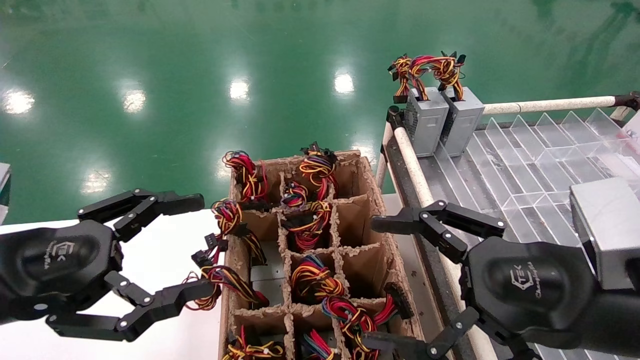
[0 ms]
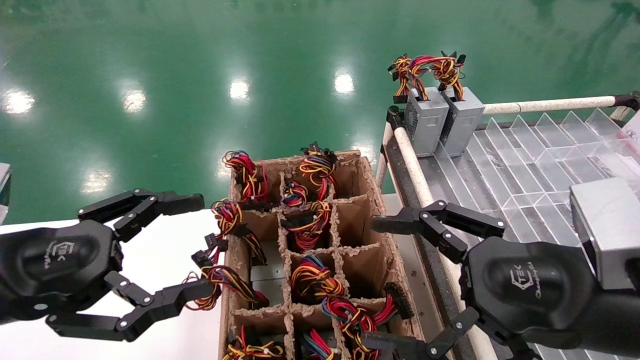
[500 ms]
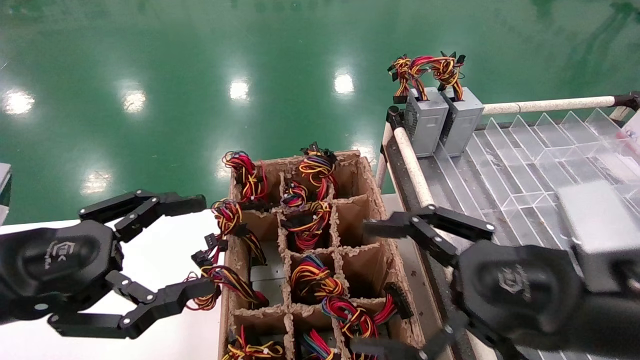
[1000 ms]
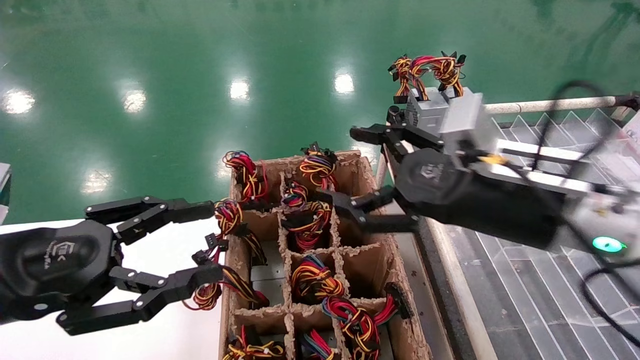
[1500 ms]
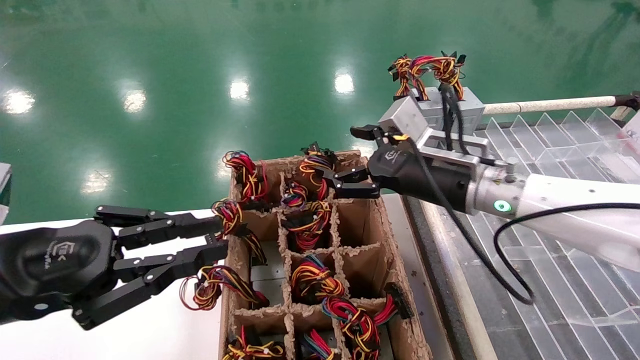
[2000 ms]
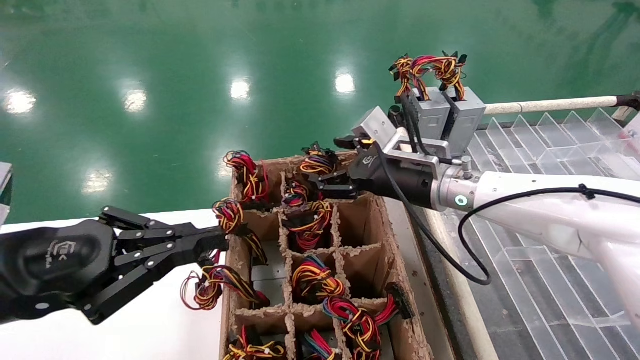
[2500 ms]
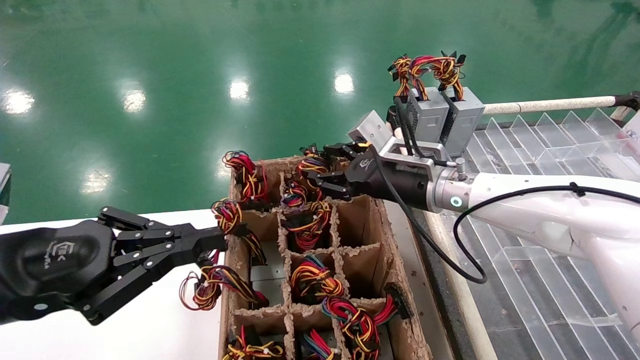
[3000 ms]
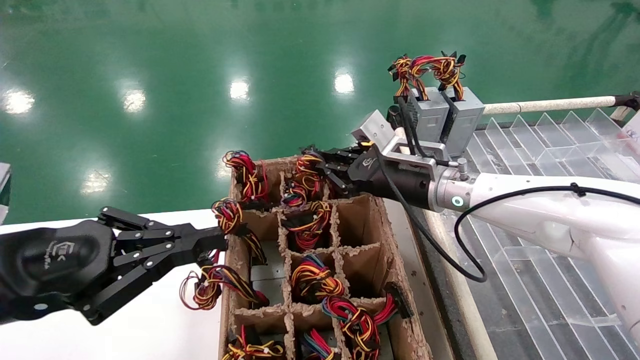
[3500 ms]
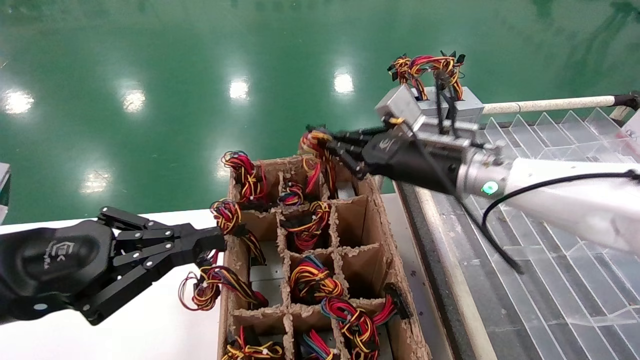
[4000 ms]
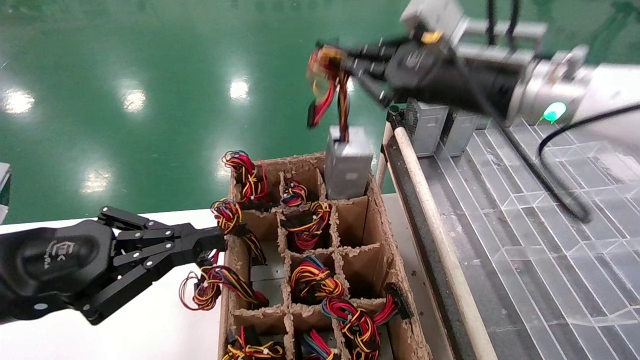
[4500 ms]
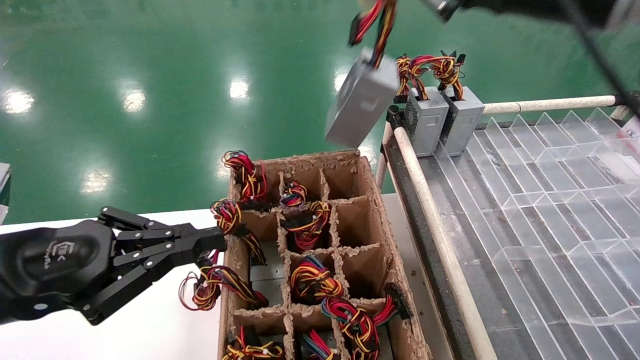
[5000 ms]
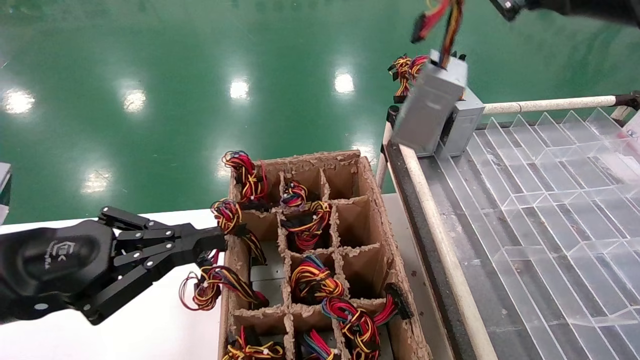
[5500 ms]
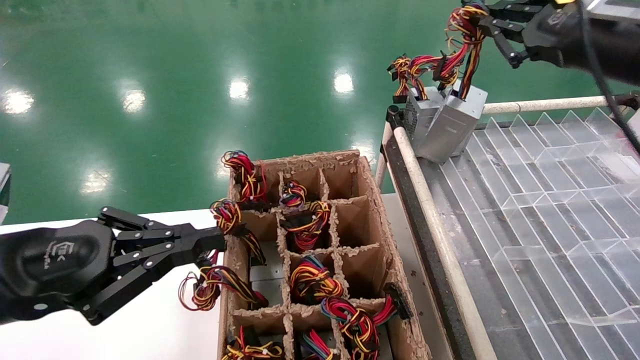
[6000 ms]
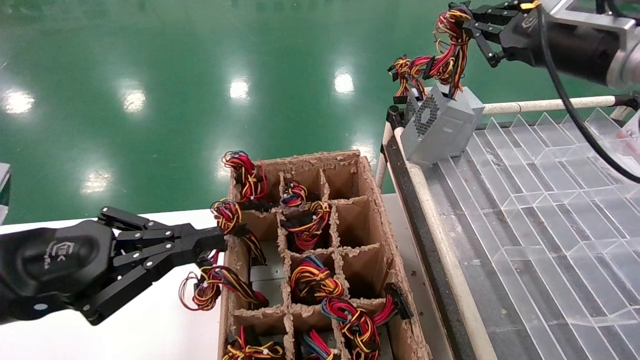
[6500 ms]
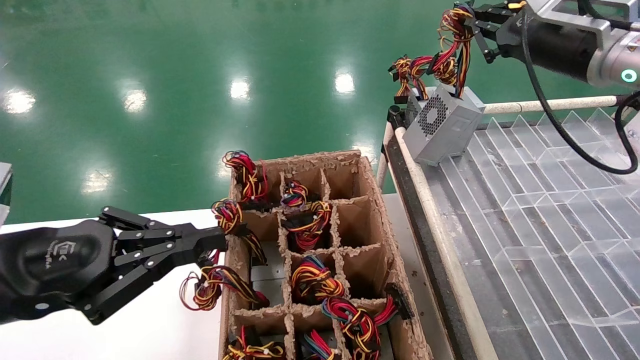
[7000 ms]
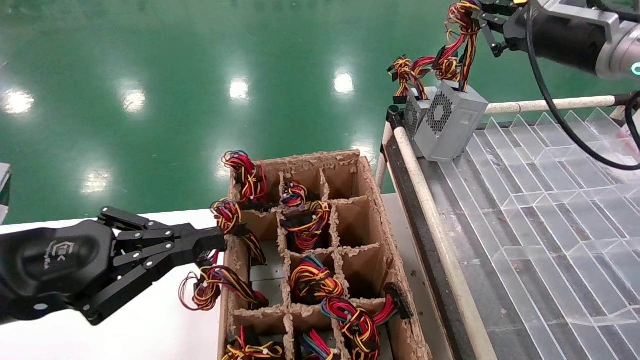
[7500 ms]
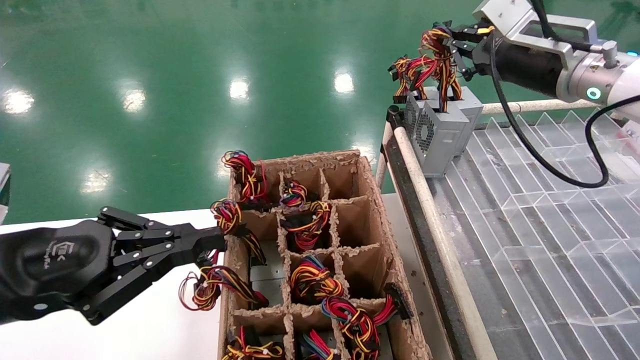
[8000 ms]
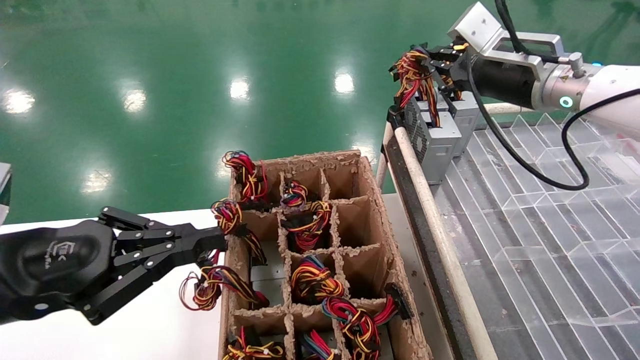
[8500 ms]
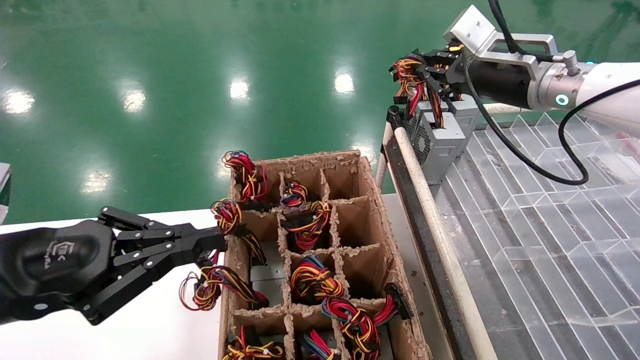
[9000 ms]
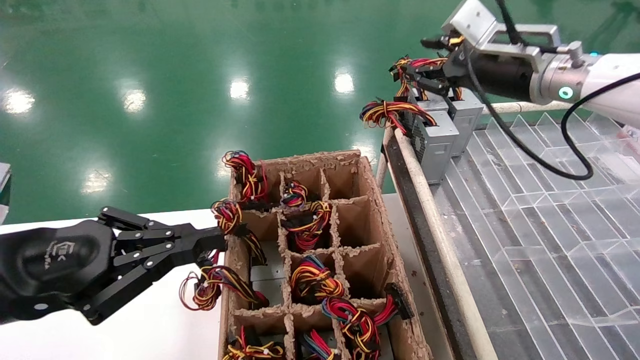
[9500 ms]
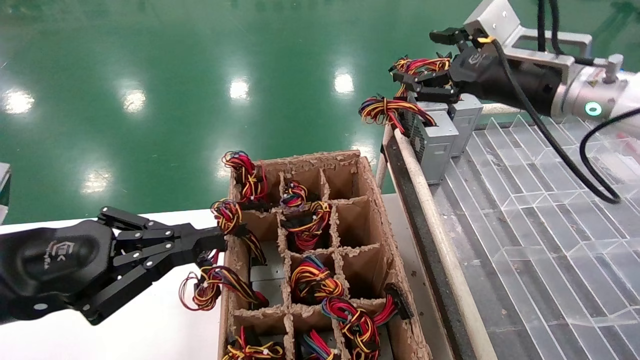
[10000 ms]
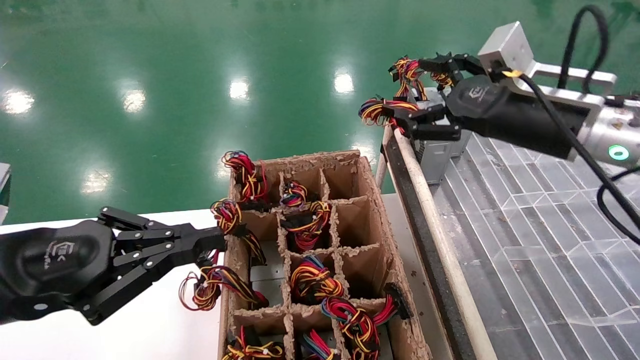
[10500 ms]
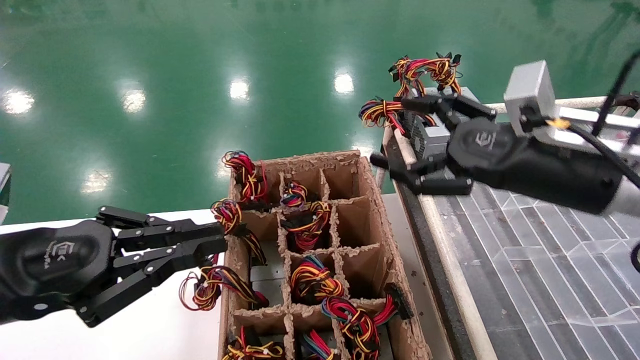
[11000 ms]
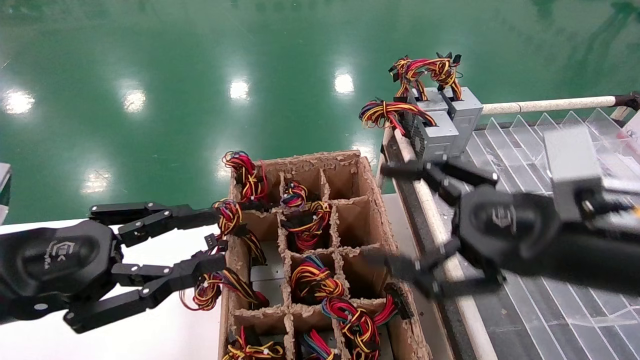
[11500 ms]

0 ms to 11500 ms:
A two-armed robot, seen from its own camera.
Step, 1500 ms to 3500 ms: Grab the main unit power supply from the containment box.
Step, 4000 ms to 9500 ms: Place the main unit power supply in the designated area.
0 ms to 2000 ms: The right gripper heads forward, covering about 20 cm. The left gripper closes.
2000 ms to 4000 ms: The right gripper closes.
4000 ms to 6000 ms: The right gripper shifts some 20 cm to the right, upward and backward.
6000 ms to 7500 ms: The right gripper is displaced forward by roughly 5 cm.
7500 ms to 9500 ms: The right gripper changes place by approximately 5 cm.
9500 ms to 11500 ms: The right gripper moves backward and downward, approximately 25 cm, and opens.

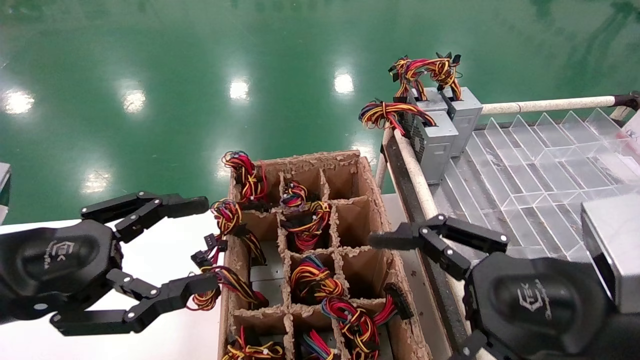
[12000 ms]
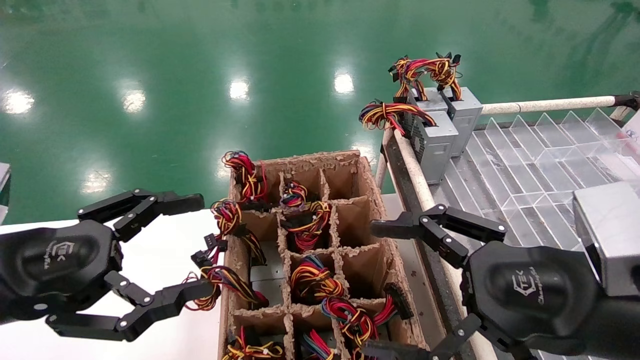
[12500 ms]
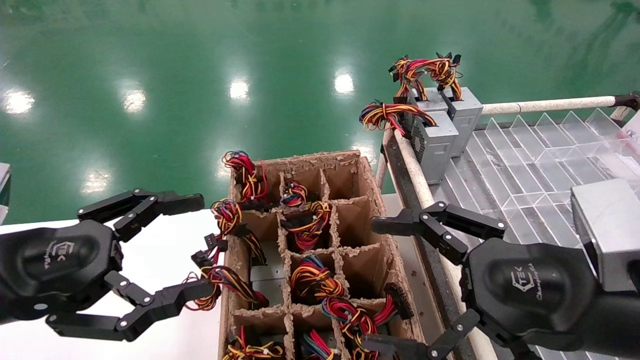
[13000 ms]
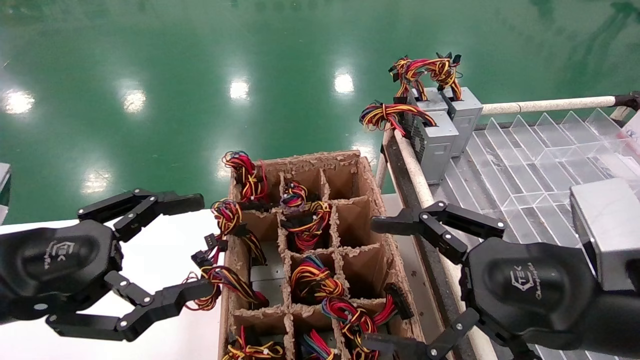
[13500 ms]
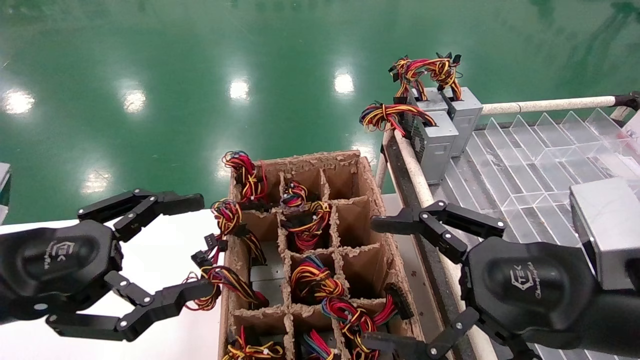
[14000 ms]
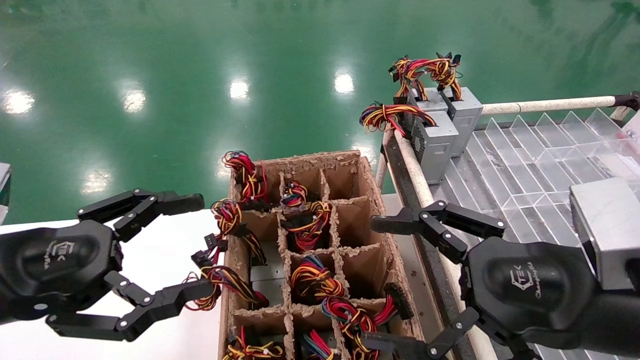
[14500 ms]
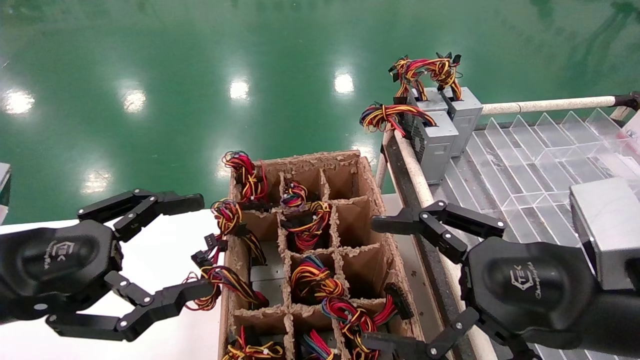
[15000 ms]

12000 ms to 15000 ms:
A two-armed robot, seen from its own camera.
12000 ms to 15000 ms: The two grippers keep their place.
